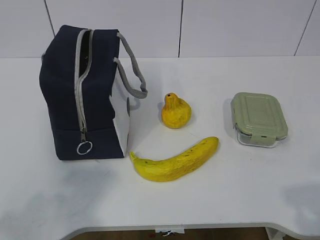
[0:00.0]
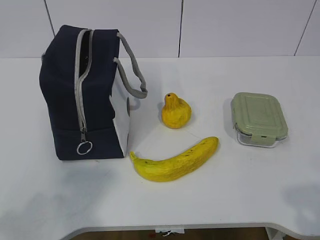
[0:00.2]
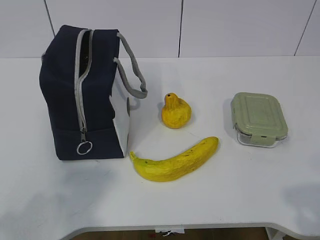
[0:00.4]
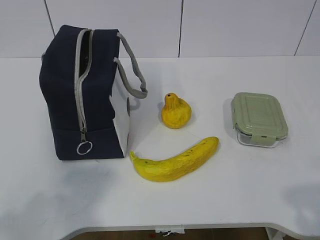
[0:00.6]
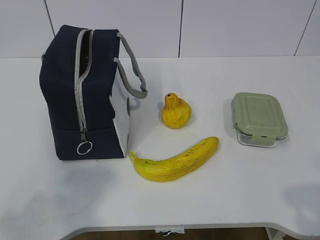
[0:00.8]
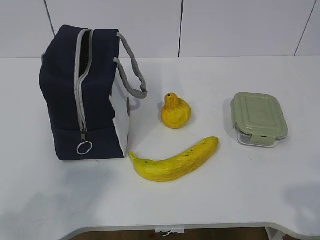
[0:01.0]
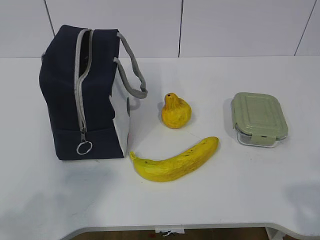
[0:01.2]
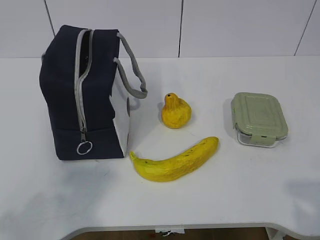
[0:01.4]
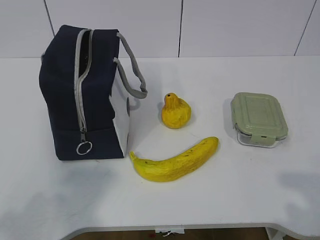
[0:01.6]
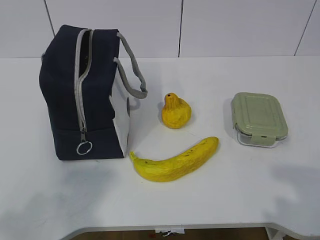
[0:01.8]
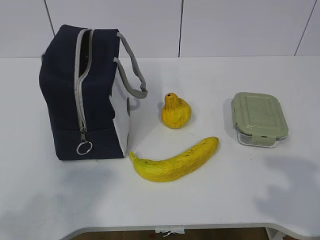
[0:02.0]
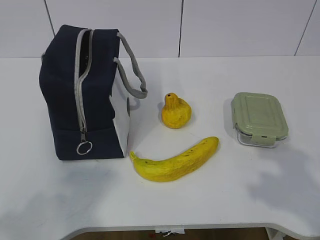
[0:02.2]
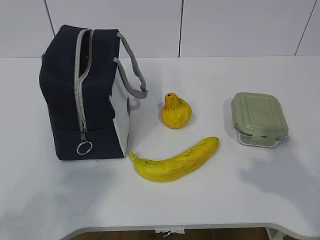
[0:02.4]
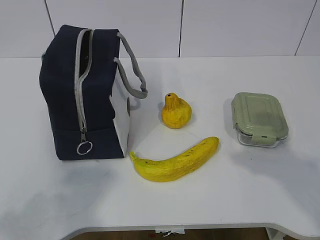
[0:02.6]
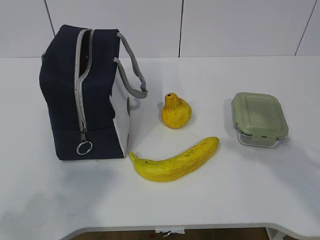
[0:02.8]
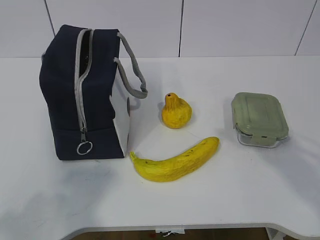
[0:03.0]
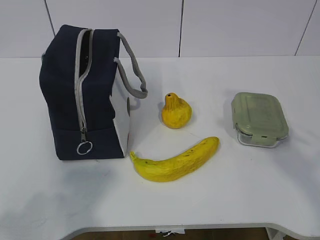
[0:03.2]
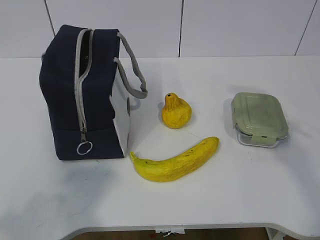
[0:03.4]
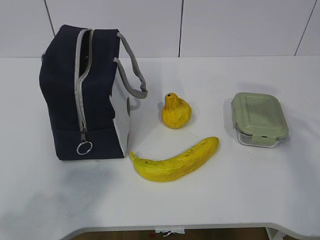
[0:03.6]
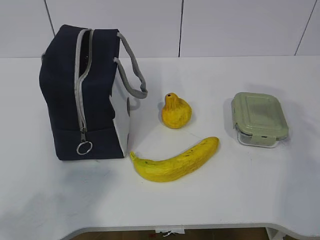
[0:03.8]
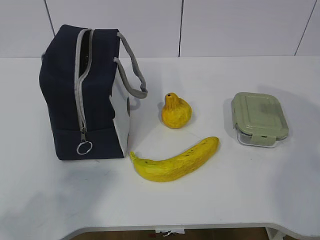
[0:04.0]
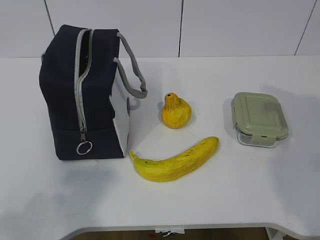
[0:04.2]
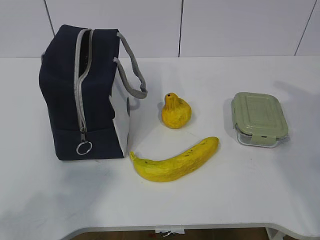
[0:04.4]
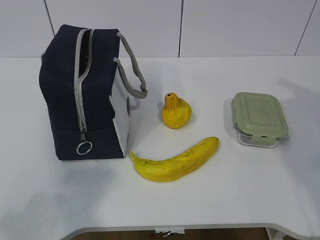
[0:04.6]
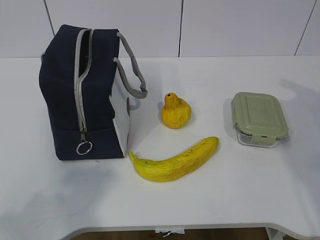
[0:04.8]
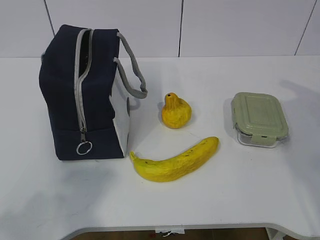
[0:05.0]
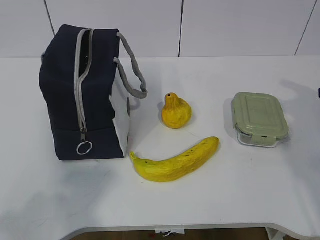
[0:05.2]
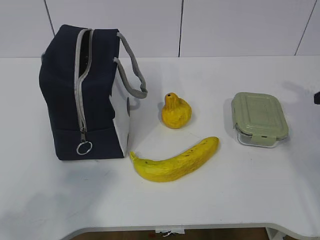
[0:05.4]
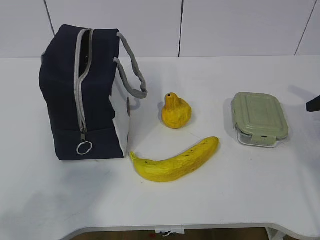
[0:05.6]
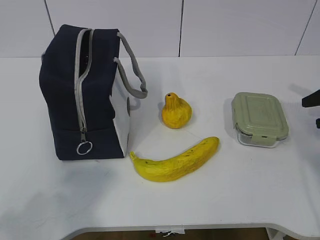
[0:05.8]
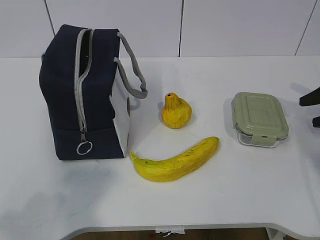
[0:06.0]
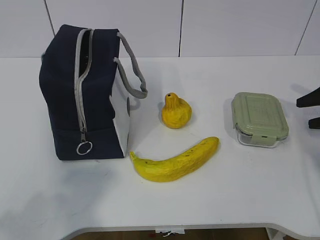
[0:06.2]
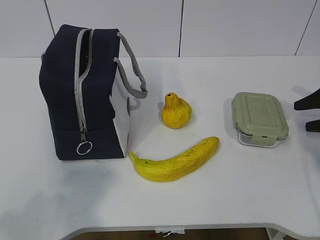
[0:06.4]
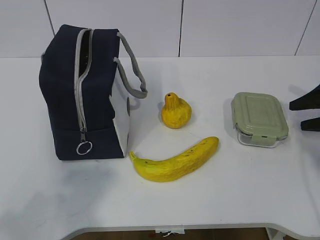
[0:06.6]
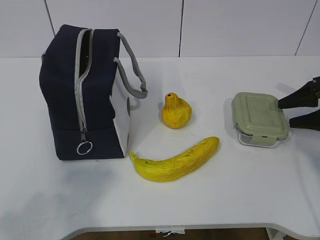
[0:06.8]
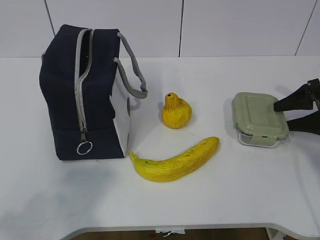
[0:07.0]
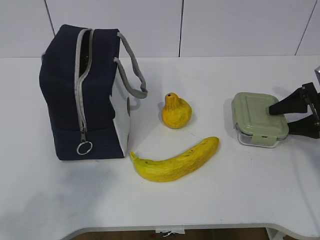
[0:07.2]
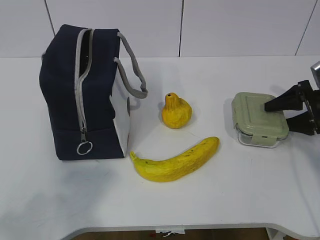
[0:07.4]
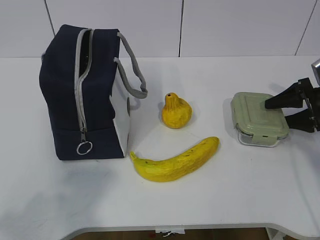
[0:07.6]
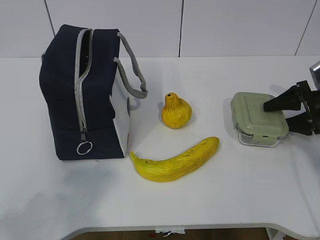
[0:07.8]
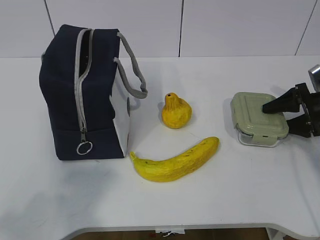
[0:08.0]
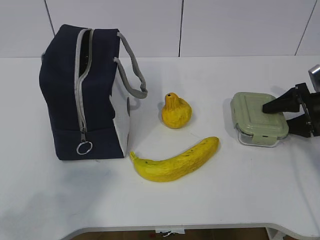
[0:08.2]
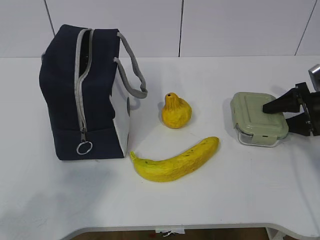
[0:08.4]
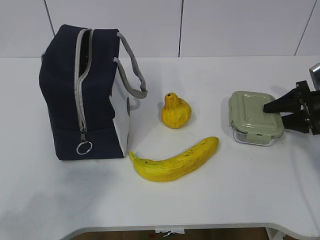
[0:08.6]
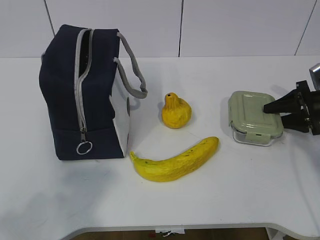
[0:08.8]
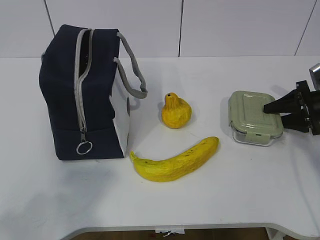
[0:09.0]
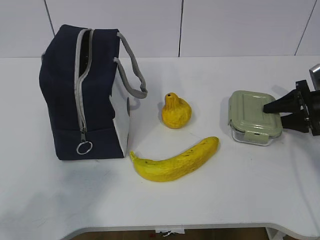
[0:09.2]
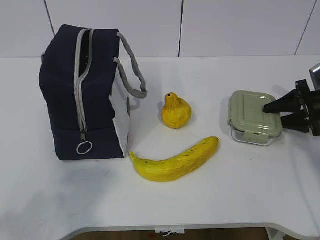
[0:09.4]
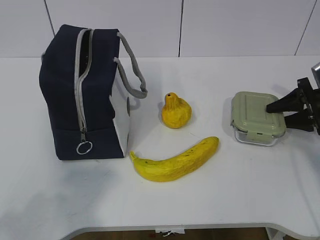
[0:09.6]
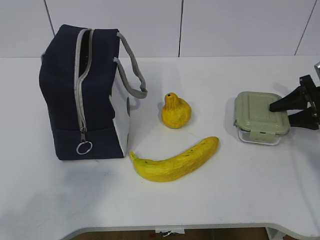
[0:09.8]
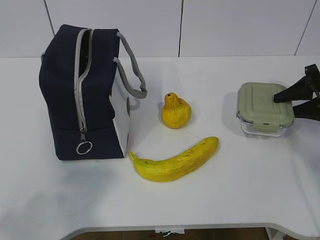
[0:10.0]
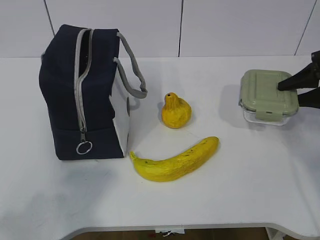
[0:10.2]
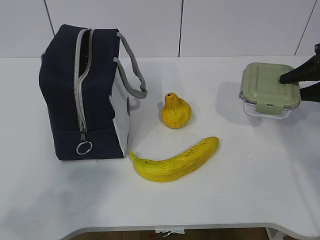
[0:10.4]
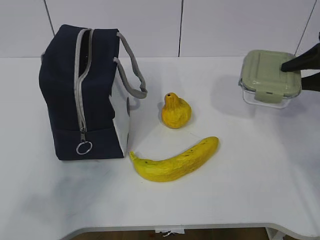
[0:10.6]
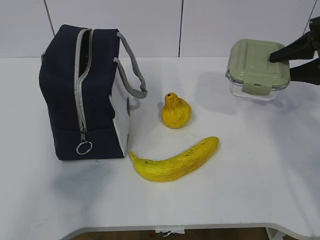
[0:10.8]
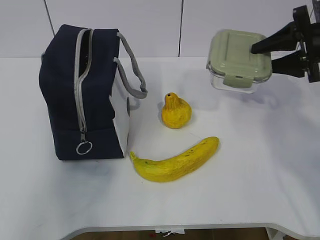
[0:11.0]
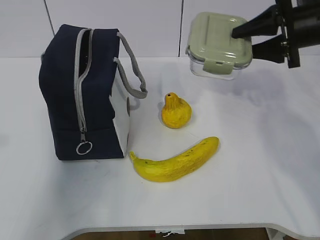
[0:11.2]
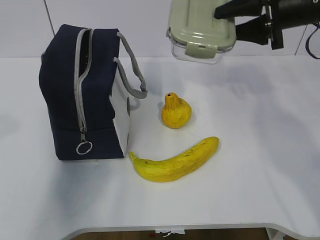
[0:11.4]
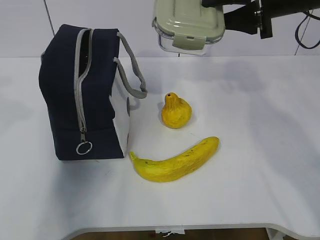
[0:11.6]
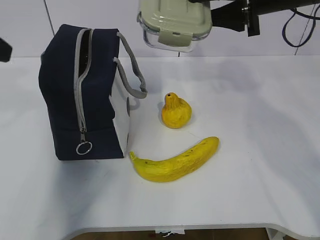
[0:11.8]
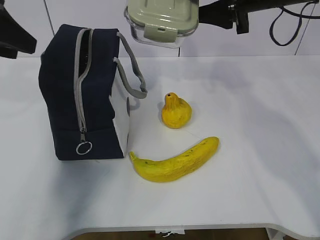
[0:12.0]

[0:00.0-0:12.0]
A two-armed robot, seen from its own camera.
Step, 0:00.0 to 0:07.8: Grab the lunch box with your right hand.
0:01.6 to 0:03.0: The right gripper is displaced forward by about 15 cm.
0:06.0 to 0:07.6: The right gripper changes place by some 5 cm.
0:07.6 to 0:09.0: The right gripper closes.
0:09.0 to 0:10.4: The right gripper shifts approximately 10 cm upward.
0:10.4 to 0:12.0: The left gripper goes approximately 30 cm forward, while the right gripper is displaced to the left and upward by roughly 25 cm.

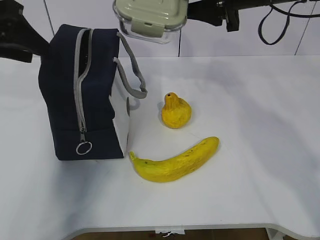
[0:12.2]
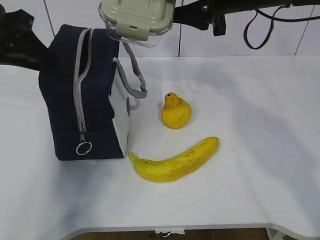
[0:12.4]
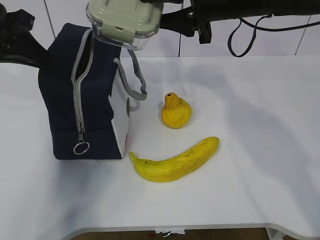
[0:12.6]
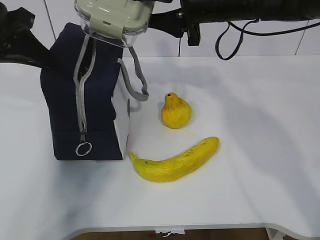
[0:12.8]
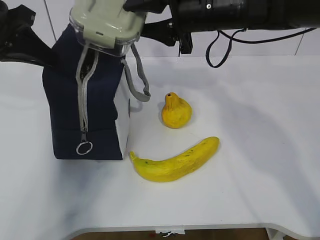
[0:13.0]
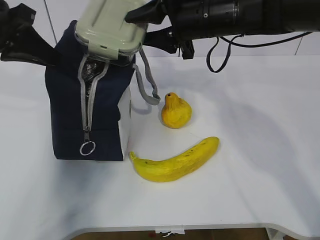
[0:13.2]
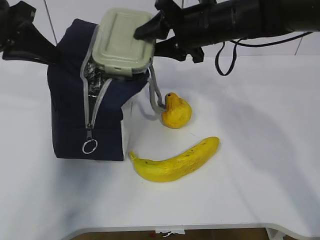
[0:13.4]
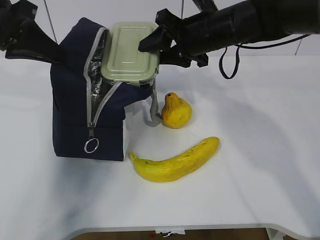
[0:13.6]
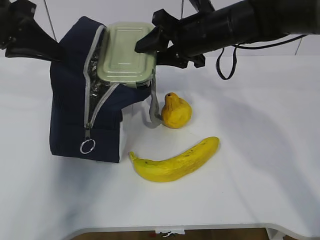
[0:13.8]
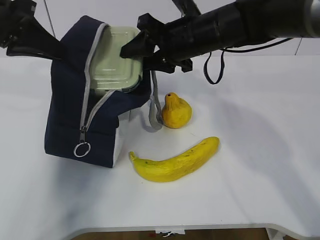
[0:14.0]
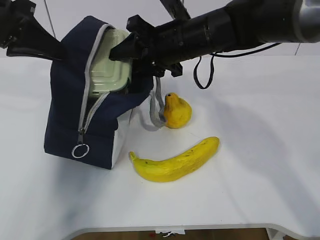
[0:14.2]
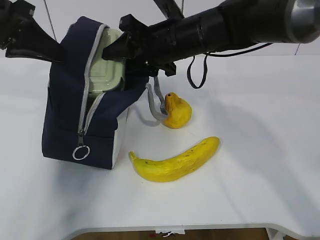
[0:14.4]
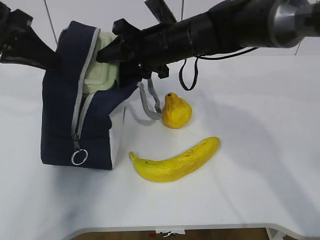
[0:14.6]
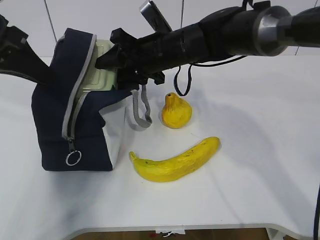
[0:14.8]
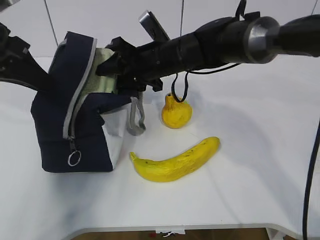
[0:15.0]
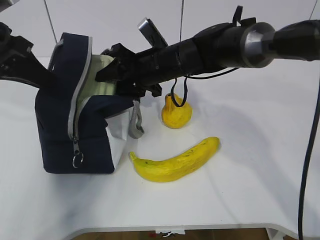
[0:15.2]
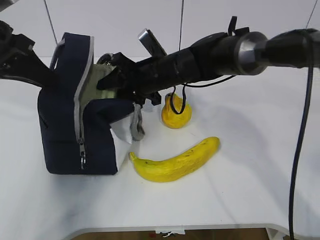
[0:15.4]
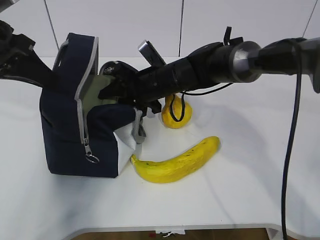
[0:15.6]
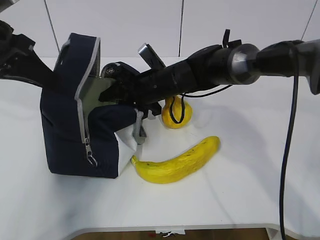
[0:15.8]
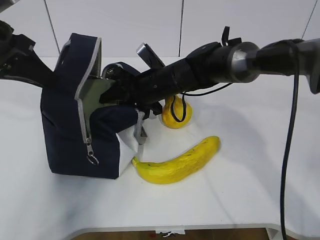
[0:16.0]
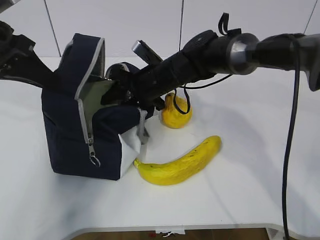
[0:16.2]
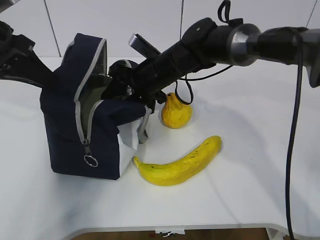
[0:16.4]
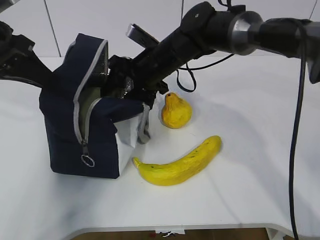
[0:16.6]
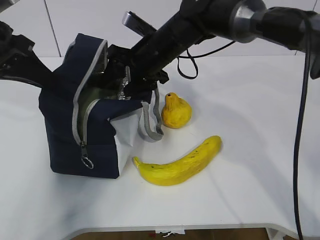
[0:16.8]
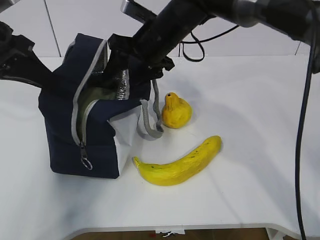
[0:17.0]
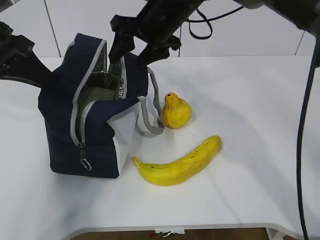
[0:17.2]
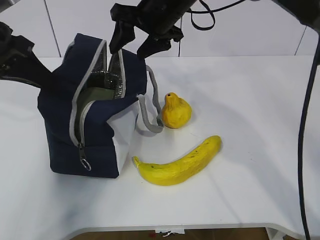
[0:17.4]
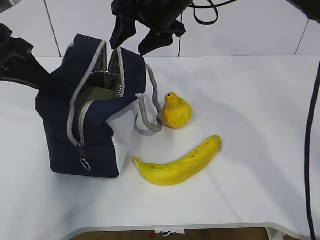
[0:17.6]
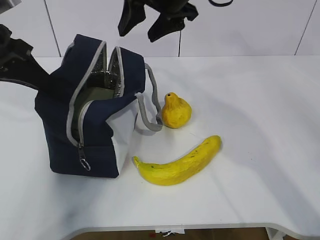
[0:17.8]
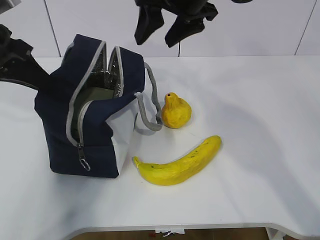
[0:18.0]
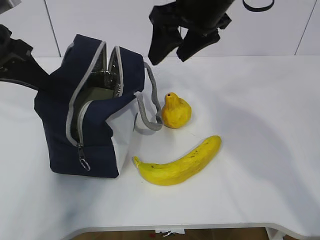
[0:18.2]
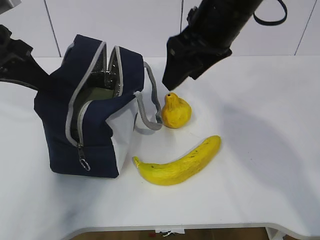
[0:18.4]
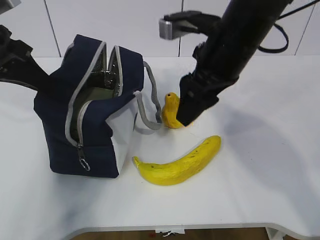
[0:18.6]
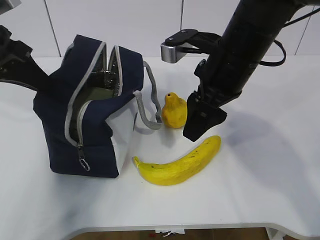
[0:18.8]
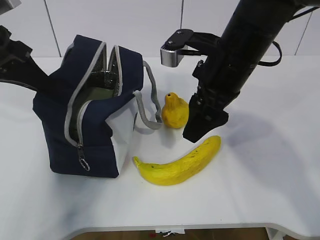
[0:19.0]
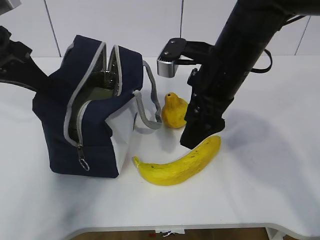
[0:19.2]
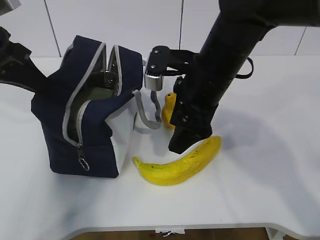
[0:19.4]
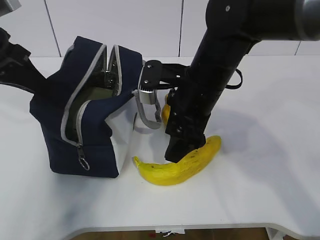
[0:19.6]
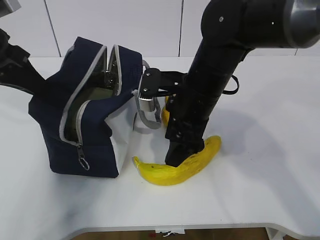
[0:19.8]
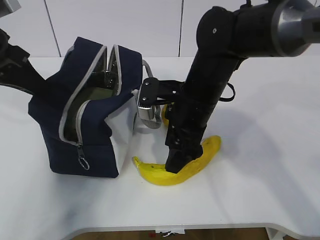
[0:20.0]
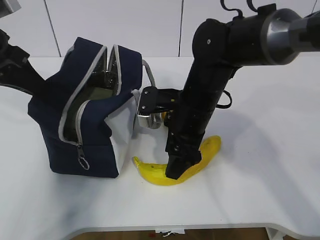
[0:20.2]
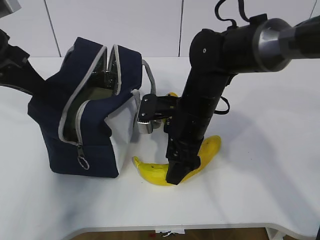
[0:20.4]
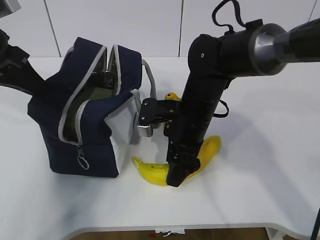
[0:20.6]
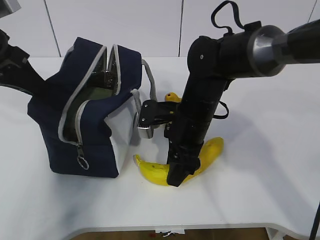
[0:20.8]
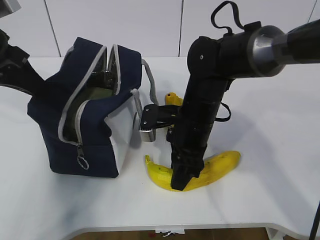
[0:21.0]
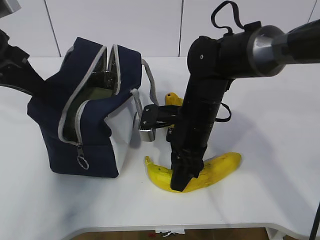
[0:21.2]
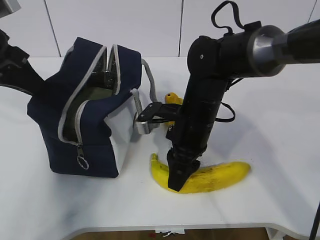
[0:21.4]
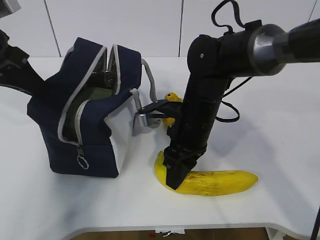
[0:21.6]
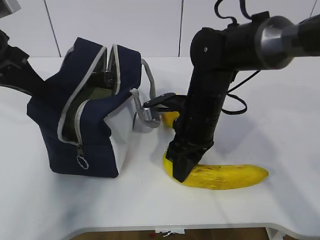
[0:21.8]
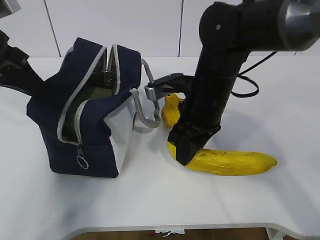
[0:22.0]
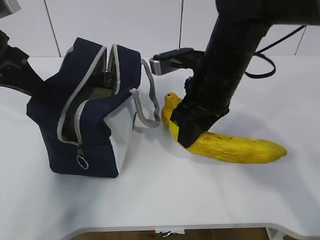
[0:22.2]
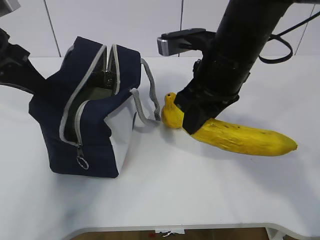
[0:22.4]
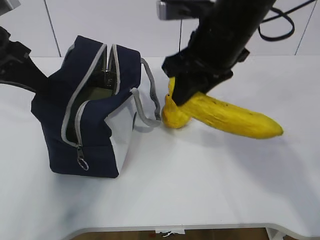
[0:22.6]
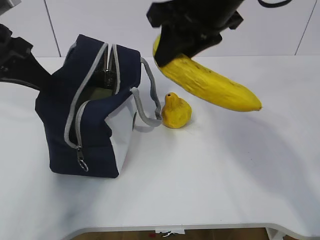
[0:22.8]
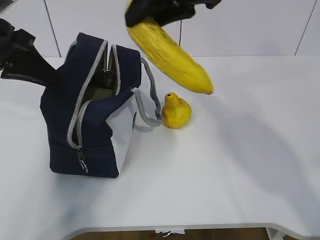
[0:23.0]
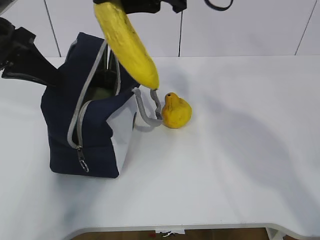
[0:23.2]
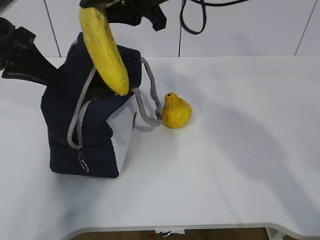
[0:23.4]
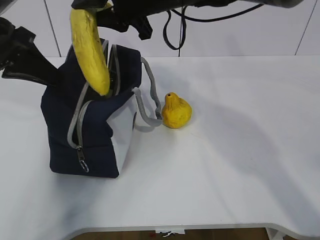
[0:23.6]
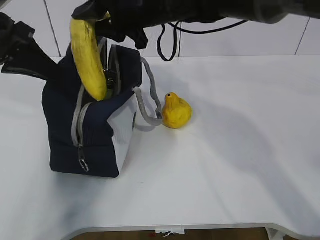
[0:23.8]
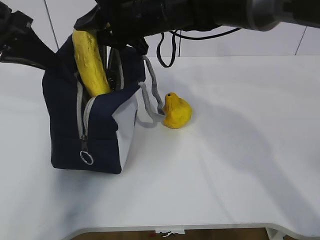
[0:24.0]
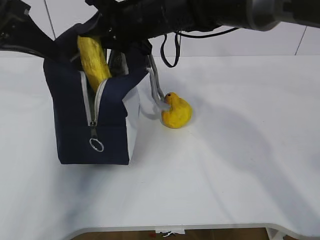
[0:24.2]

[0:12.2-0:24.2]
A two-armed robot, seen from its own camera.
Step, 0:12.2 to 0:13.8: Place it into the bag with your right hand.
Step, 0:14.0 to 0:17.2: Grab the banana with your right hand.
Step, 0:17.6 to 0:21.0: Place it into the bag with your right hand.
0:12.2 to 0:13.8: The right gripper heads downward and to the left, covering roughly 10 cm; the left gripper closes up.
0:13.8 to 0:15.2: The right gripper shifts approximately 10 cm to the left and downward.
0:16.6 to 0:18.2: The right gripper goes approximately 15 cm upward, backward and to the right.
0:18.2 to 0:19.8: The right gripper shifts roughly 15 cm downward.
0:19.8 to 0:21.2: The right gripper shifts approximately 5 cm downward, and closes.
0:21.2 to 0:22.6: The right gripper travels upward by roughly 15 cm.
0:22.6 to 0:24.2: The right gripper goes approximately 15 cm forward and to the left.
